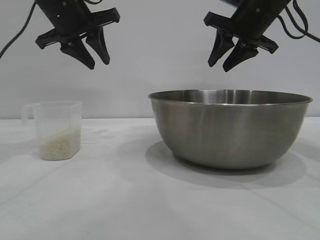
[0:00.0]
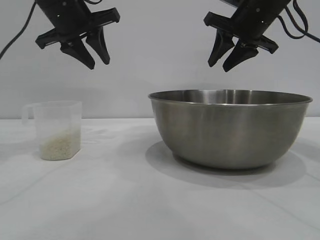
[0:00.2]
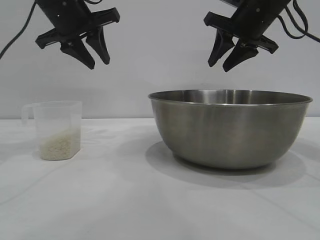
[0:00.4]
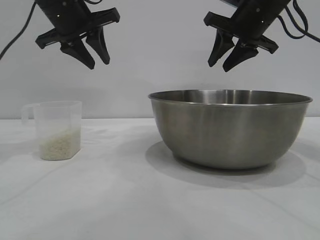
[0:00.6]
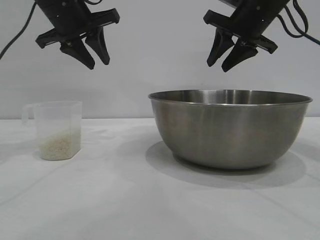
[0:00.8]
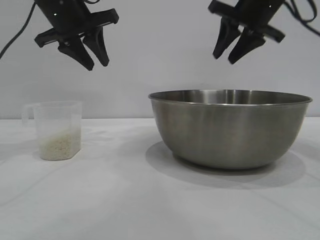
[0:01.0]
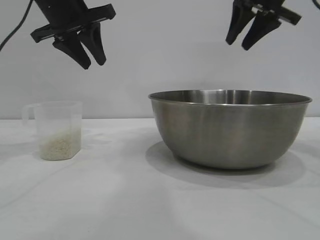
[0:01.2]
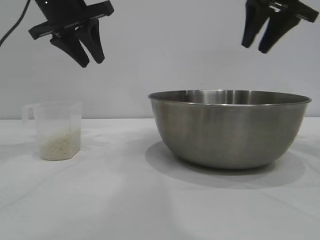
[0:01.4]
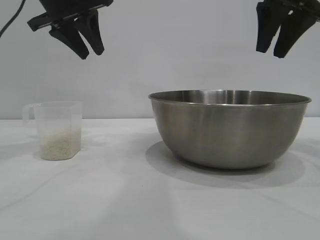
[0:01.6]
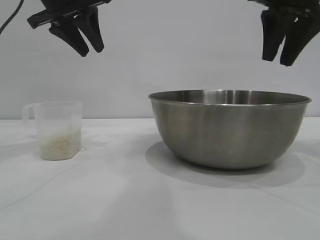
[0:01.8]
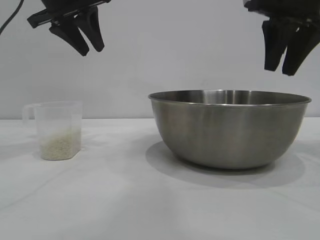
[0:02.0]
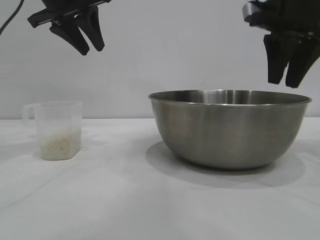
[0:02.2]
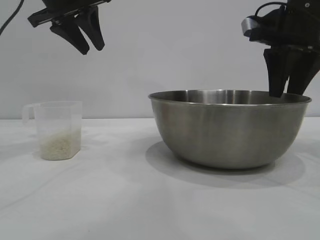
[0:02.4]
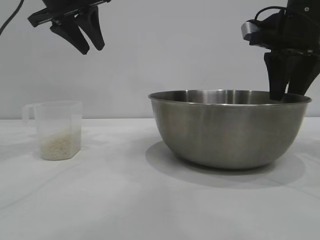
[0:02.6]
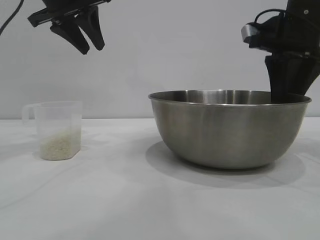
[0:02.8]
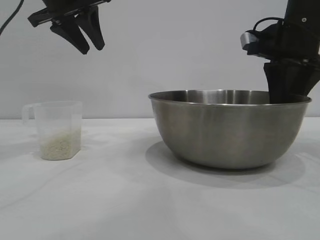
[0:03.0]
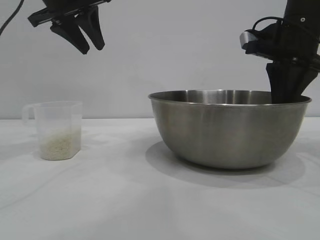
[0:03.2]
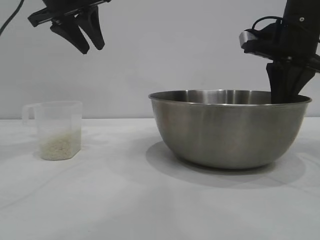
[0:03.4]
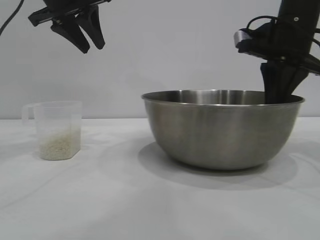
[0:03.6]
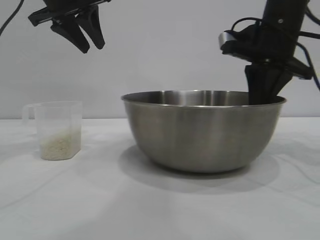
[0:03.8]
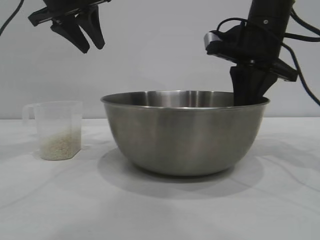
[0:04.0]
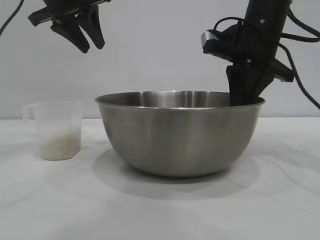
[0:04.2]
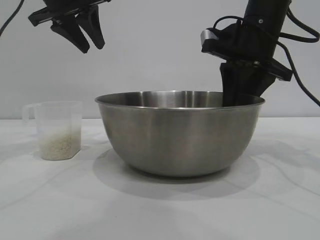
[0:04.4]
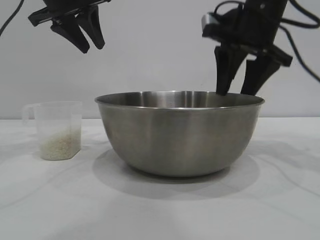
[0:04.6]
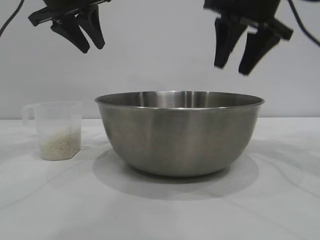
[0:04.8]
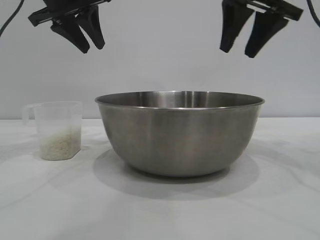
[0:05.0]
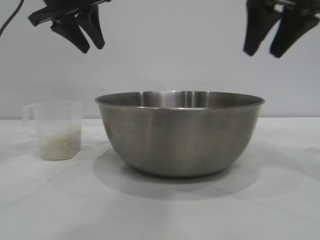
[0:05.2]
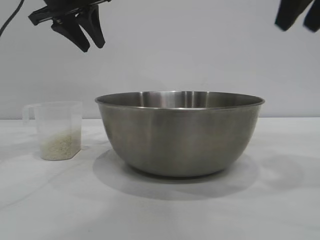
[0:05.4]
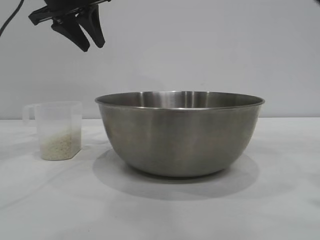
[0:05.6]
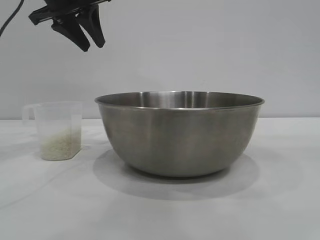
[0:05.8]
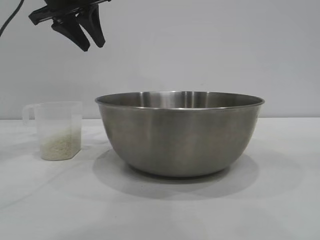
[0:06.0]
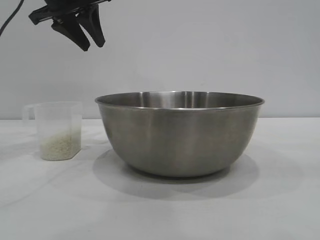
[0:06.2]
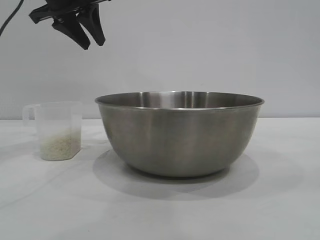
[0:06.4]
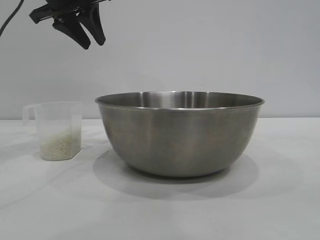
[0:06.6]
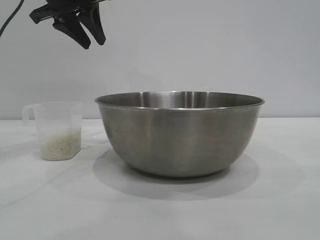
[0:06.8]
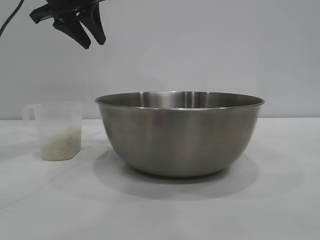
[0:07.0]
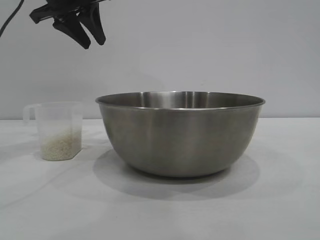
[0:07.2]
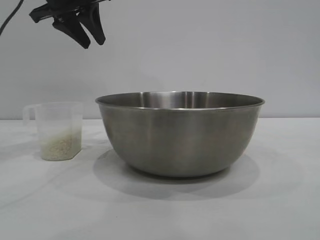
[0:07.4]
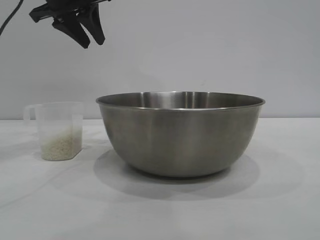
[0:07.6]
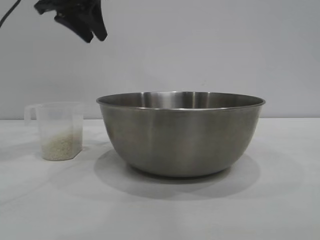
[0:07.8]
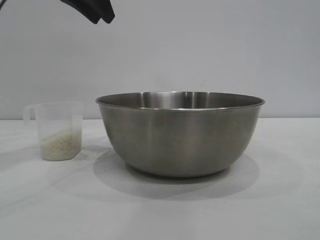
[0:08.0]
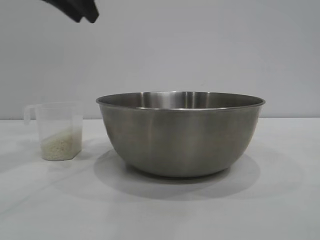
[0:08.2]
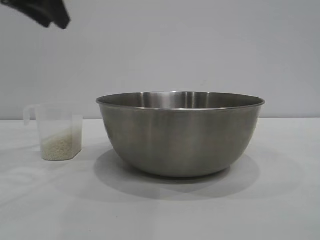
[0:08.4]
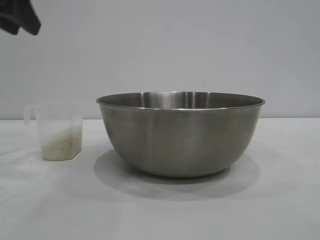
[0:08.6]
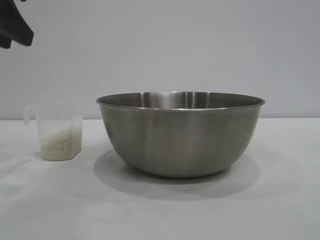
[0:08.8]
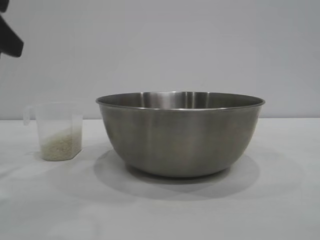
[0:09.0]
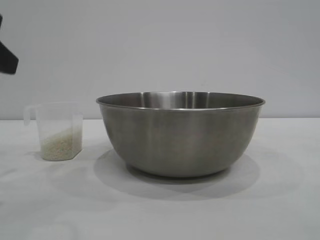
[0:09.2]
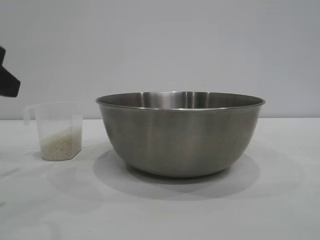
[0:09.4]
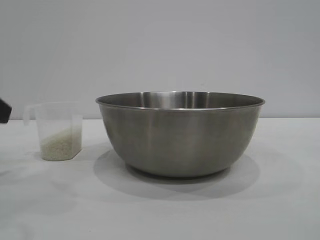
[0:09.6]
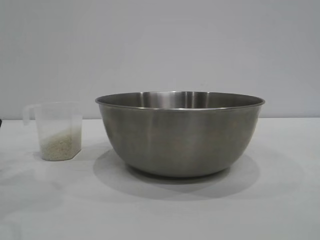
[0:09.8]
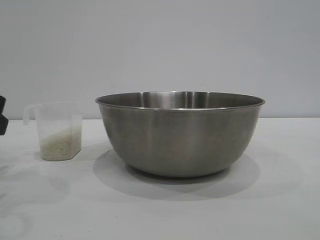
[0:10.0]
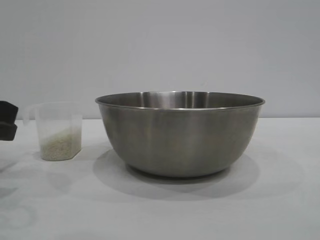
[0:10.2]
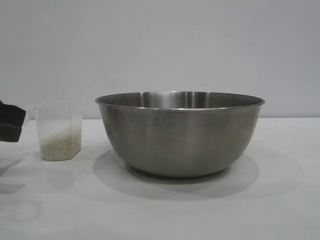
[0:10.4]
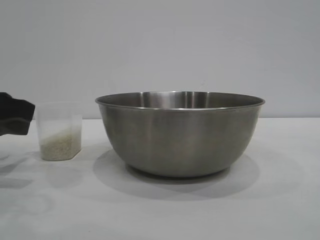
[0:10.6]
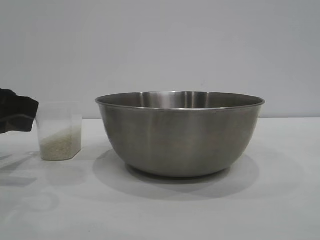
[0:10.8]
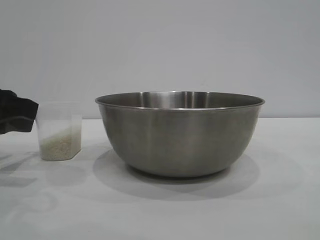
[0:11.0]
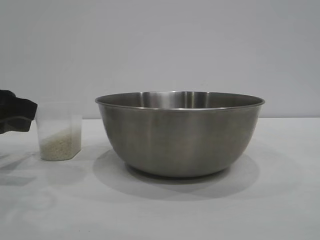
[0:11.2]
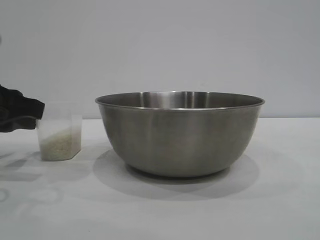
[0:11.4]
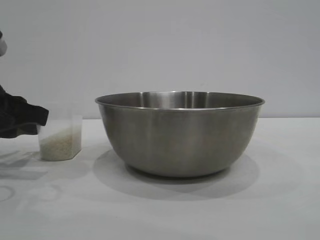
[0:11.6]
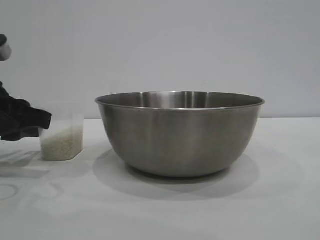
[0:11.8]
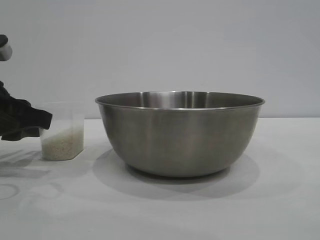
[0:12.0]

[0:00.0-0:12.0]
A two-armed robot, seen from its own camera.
Task of the whole recording: the right gripper grasp the rice container and place it in the center of the table, the left gripper grasp the rice scoop and pour the rice into the rice container.
Step, 0:00.0 to 0:04.8: Move the bowl to the center of view with the right gripper.

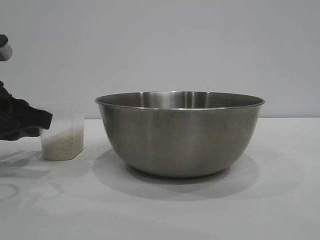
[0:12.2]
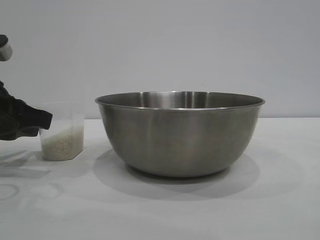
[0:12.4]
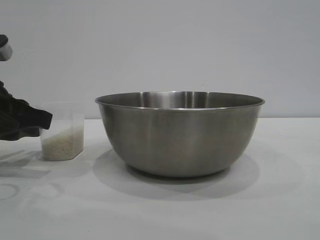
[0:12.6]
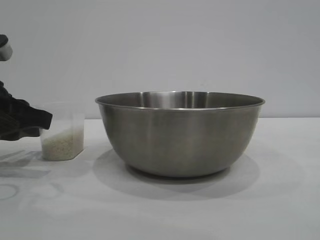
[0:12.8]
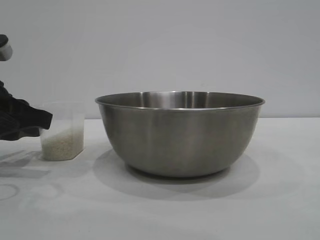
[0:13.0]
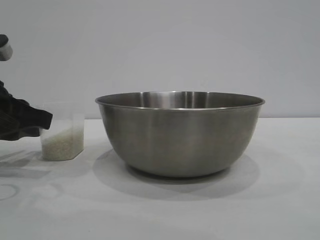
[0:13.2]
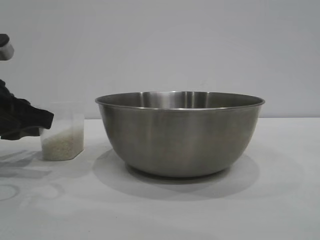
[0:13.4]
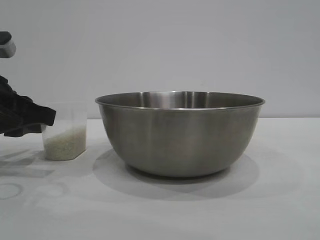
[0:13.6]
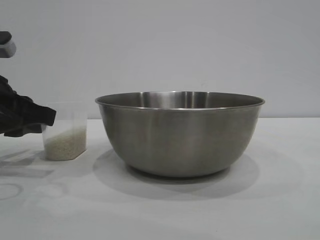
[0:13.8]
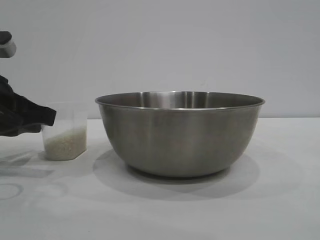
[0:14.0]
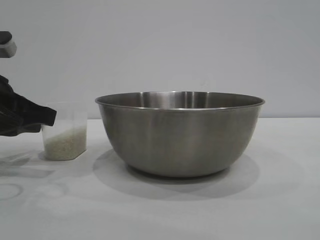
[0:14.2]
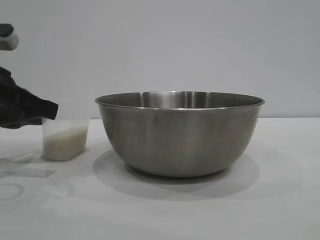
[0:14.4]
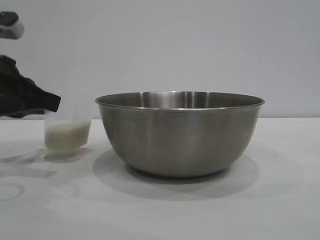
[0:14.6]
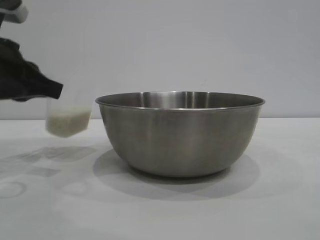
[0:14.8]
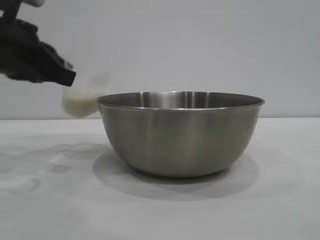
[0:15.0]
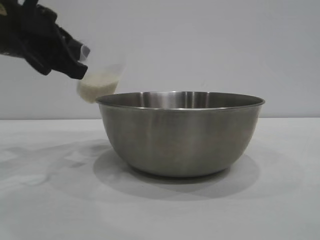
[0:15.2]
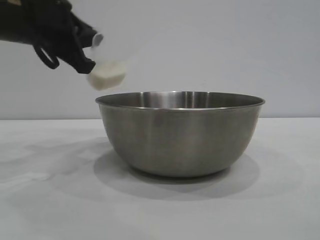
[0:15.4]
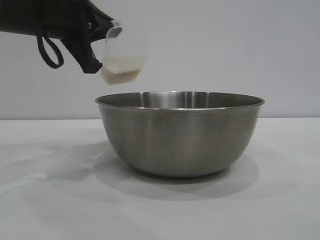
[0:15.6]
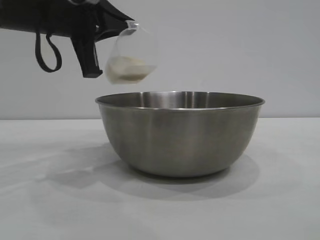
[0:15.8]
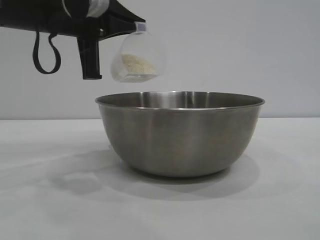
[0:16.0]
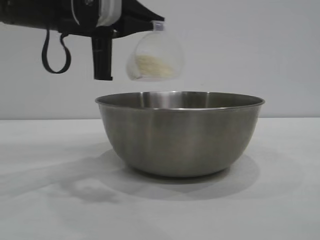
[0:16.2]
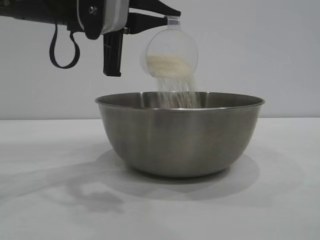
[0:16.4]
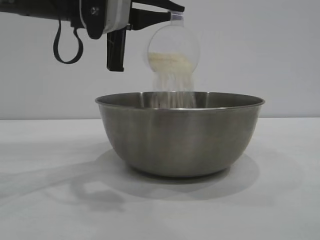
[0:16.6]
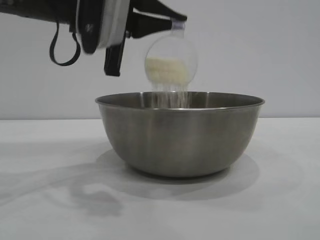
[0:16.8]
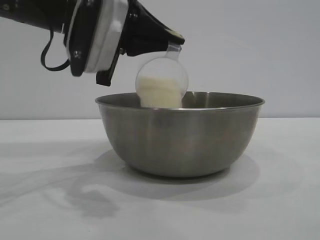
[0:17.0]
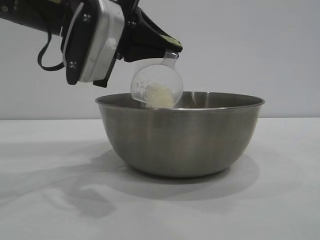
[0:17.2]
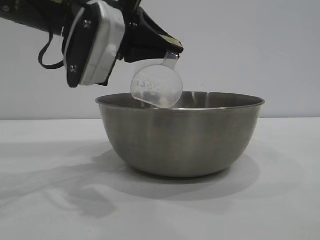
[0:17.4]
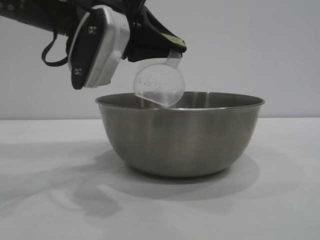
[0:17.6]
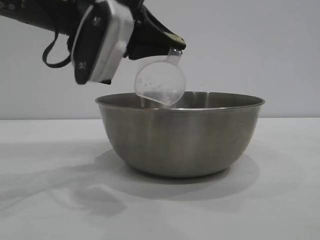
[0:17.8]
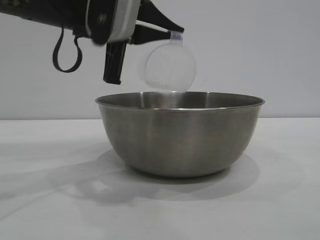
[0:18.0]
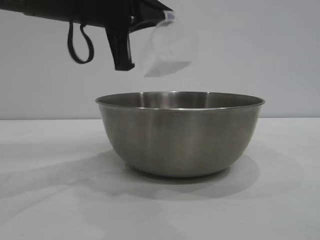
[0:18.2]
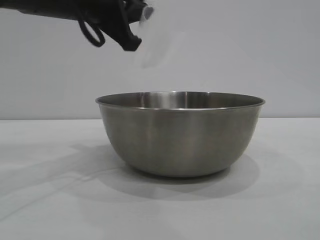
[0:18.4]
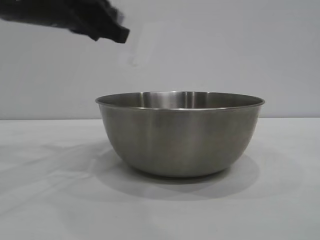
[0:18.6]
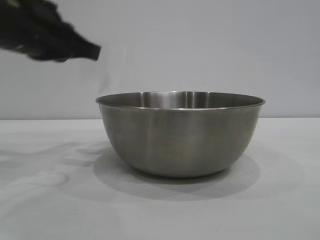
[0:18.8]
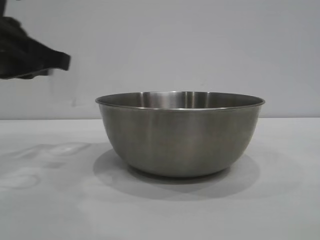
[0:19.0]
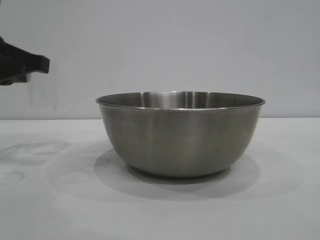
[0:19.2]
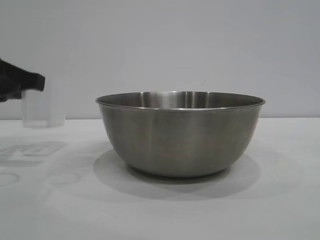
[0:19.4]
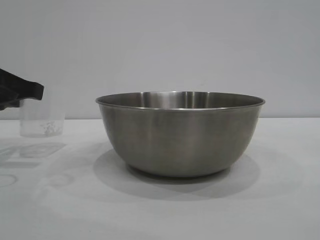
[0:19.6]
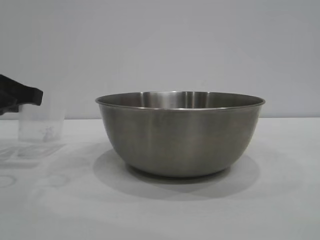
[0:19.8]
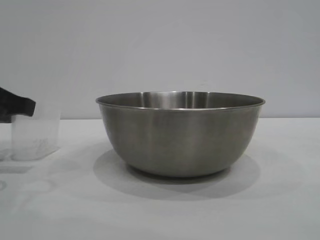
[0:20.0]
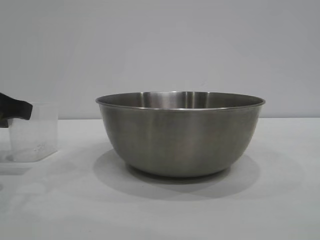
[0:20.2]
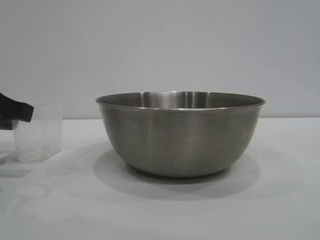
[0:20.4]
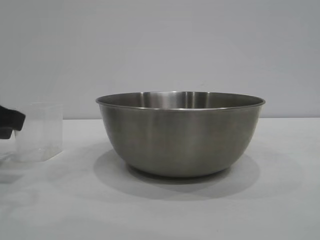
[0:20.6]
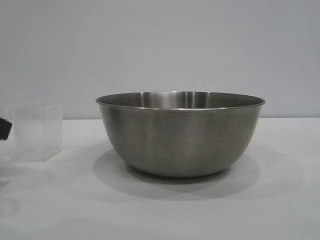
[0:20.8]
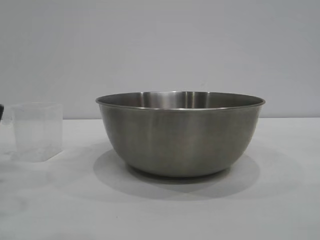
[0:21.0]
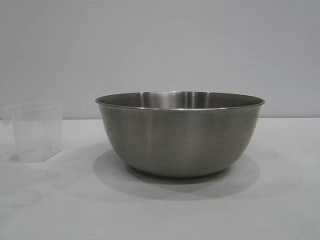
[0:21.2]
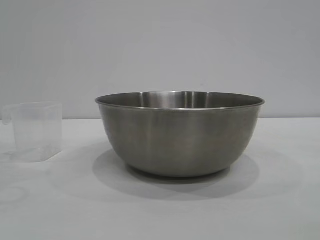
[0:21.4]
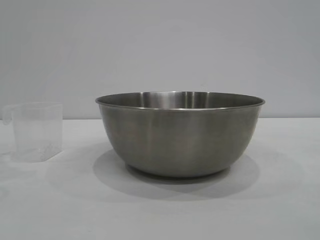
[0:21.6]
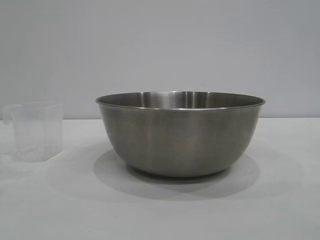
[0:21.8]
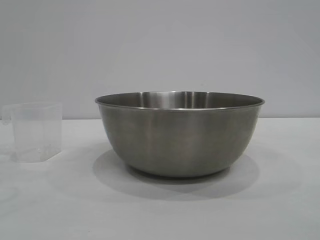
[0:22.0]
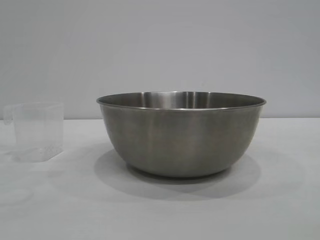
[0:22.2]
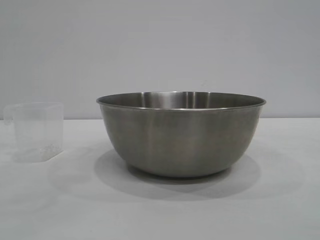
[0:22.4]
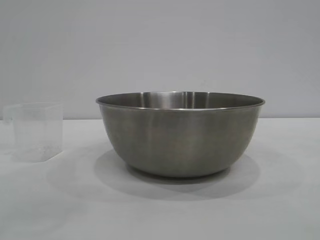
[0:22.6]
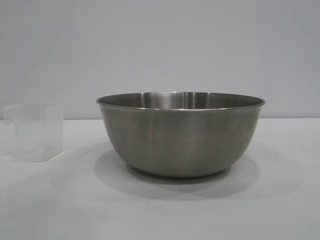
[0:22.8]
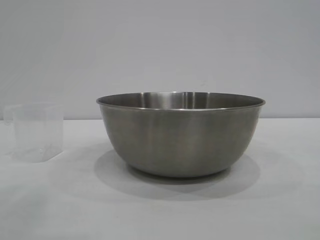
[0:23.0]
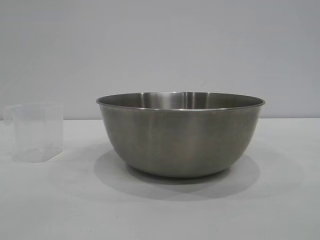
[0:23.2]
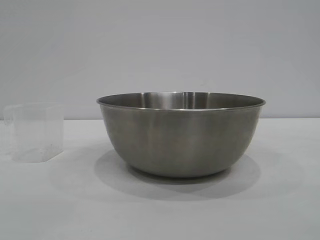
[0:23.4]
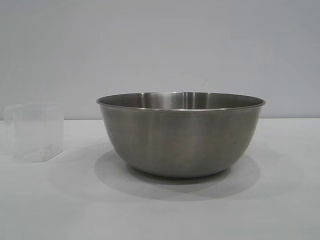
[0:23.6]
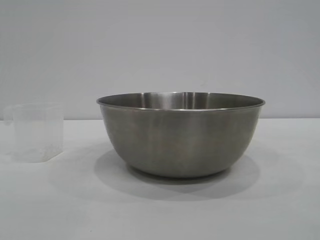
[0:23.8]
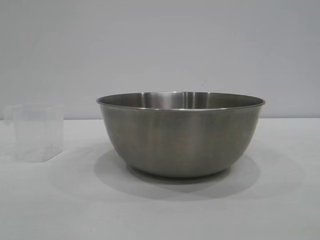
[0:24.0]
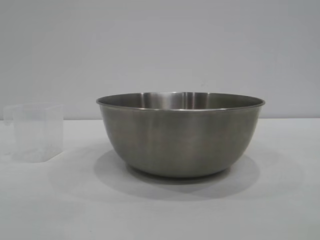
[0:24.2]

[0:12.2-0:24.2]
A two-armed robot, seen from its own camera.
Task of the whole recording: the right gripper grasp the rice container and place it in the center of the table, the left gripper grasp the rice scoop and pour the rice into the rice container.
Step, 0:12.2 to 0:14.6: Pick up the cup with rice in it with the left gripper.
Step, 0:14.8 to 0:18.0: Pour the rice from the cup into the bowl with the left gripper.
Step, 0:18.2 to 0:21.2: Place the cup on the table with the left gripper.
